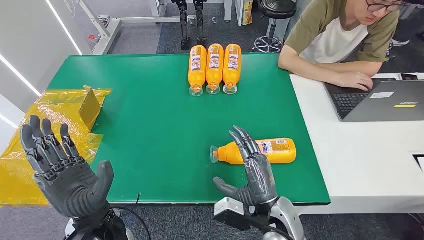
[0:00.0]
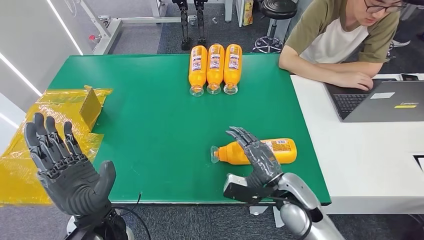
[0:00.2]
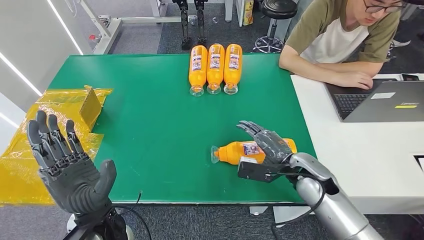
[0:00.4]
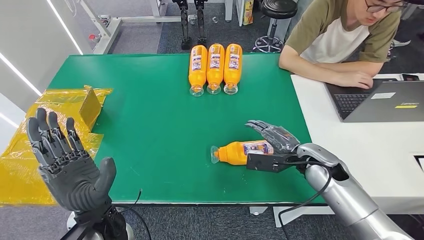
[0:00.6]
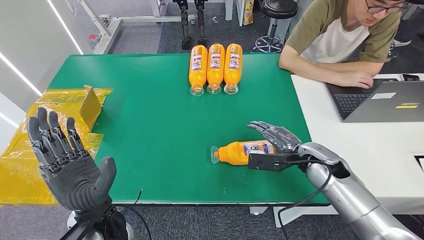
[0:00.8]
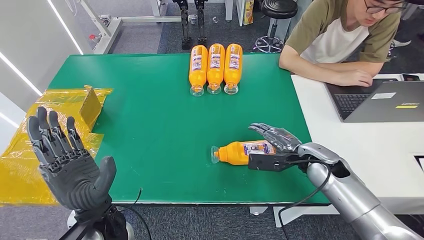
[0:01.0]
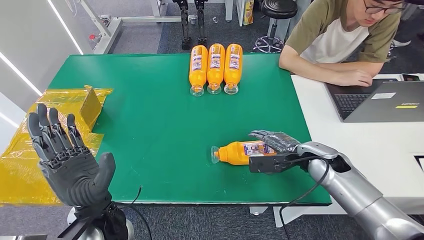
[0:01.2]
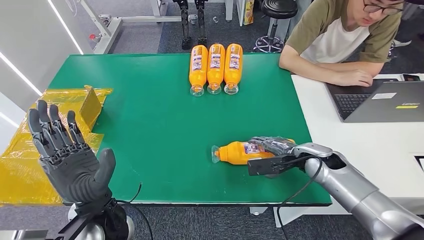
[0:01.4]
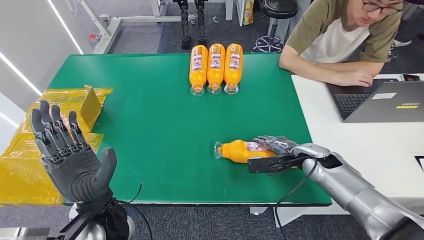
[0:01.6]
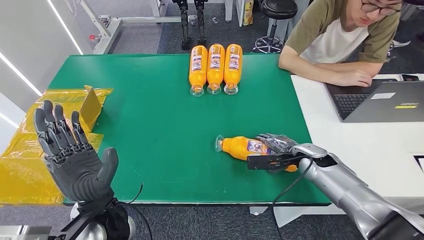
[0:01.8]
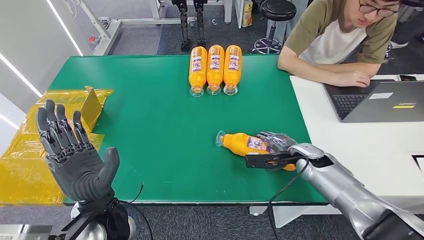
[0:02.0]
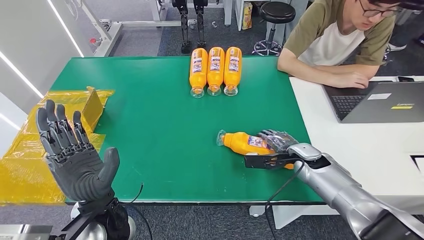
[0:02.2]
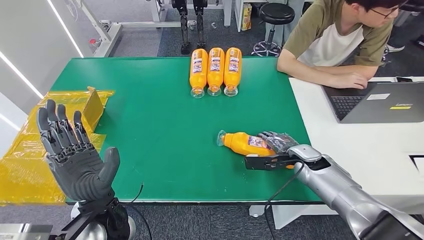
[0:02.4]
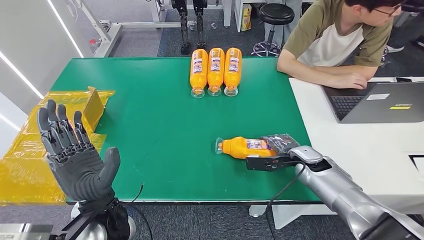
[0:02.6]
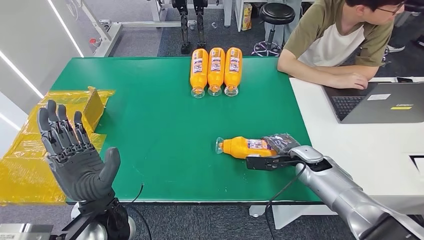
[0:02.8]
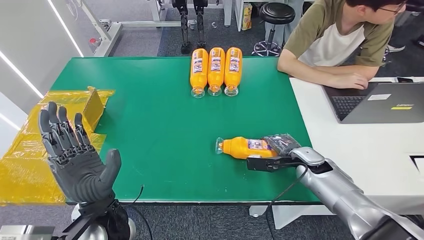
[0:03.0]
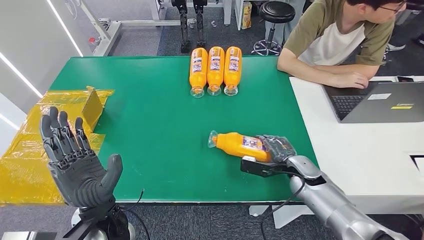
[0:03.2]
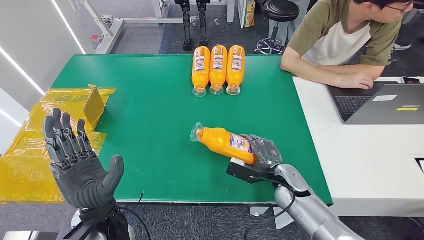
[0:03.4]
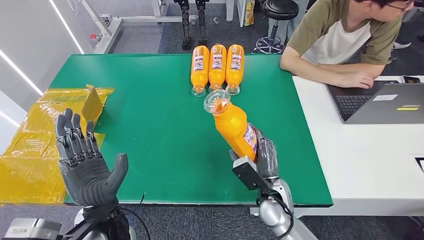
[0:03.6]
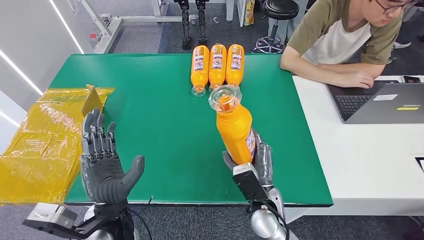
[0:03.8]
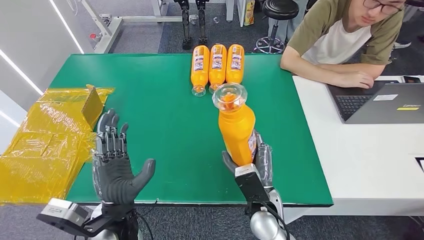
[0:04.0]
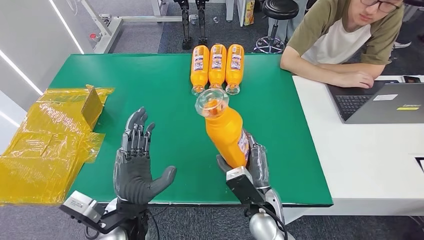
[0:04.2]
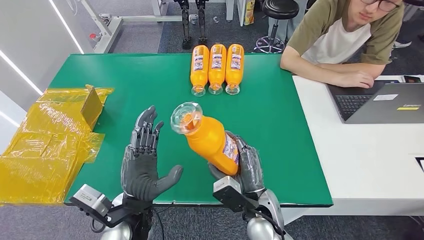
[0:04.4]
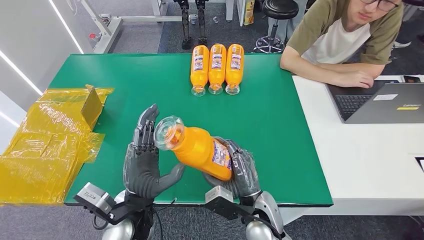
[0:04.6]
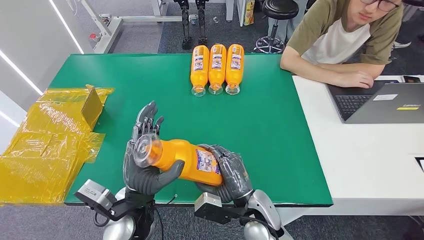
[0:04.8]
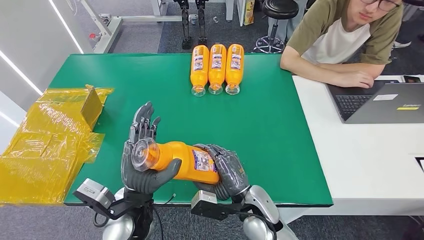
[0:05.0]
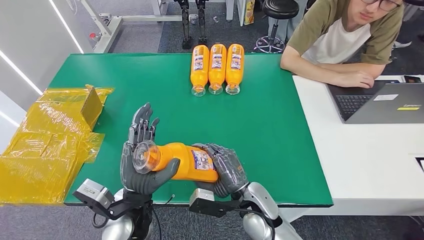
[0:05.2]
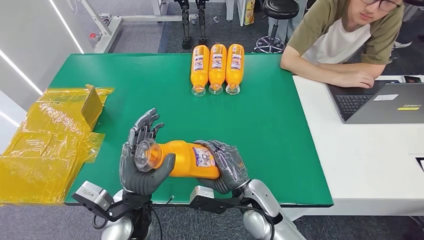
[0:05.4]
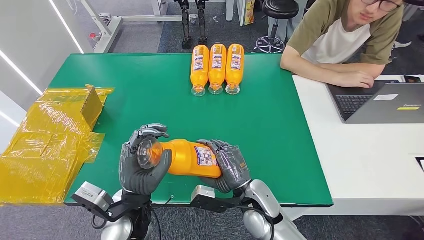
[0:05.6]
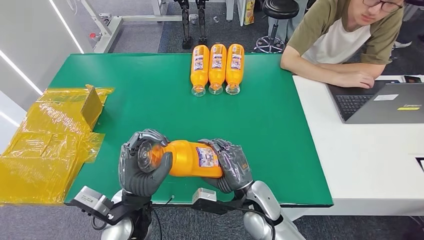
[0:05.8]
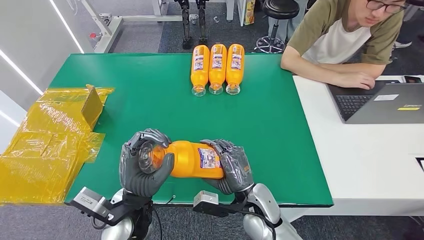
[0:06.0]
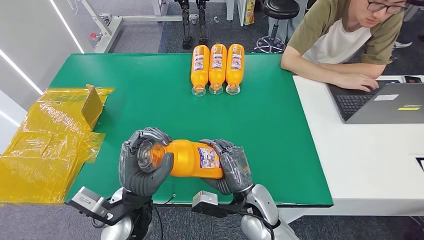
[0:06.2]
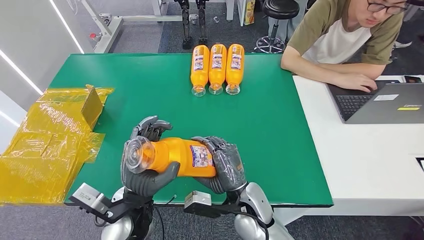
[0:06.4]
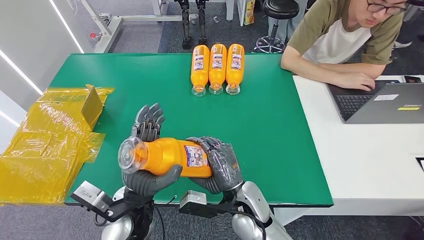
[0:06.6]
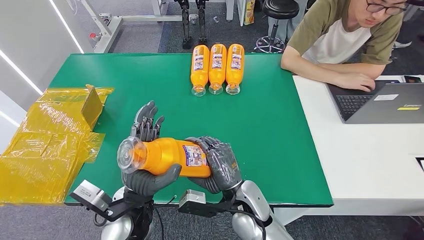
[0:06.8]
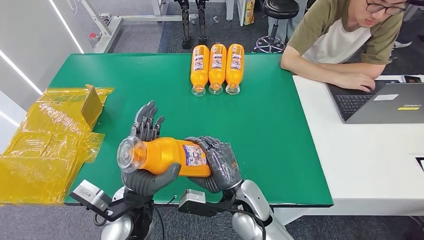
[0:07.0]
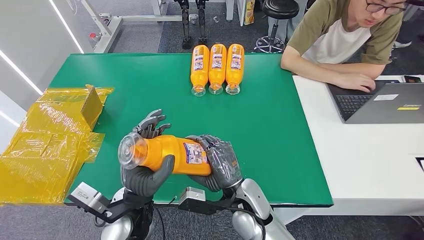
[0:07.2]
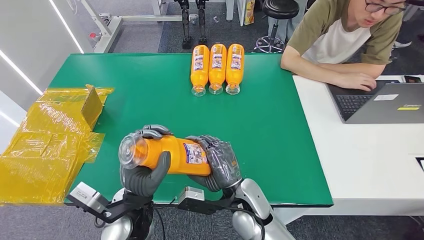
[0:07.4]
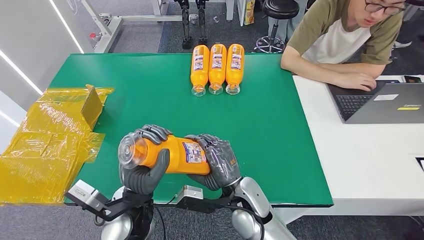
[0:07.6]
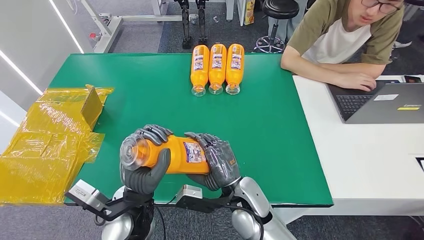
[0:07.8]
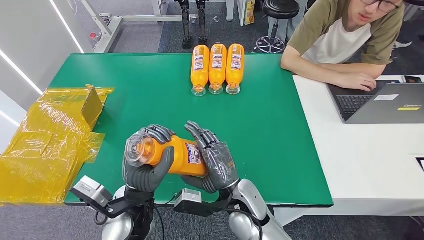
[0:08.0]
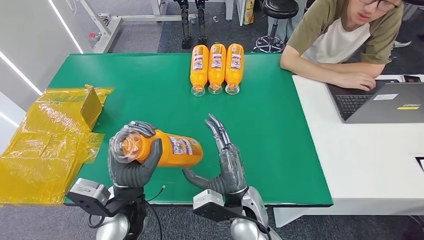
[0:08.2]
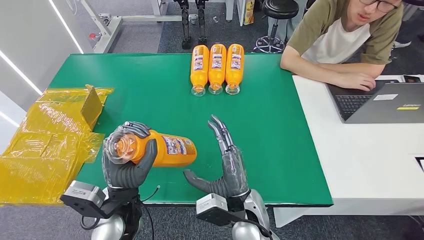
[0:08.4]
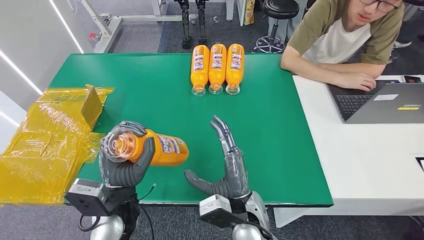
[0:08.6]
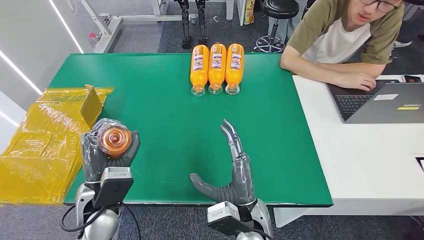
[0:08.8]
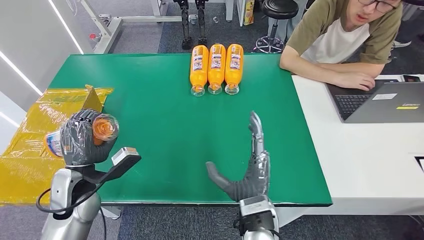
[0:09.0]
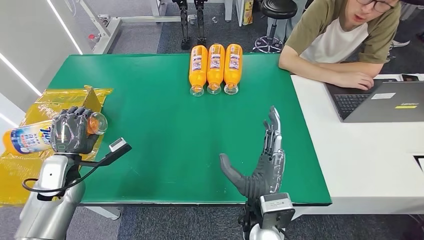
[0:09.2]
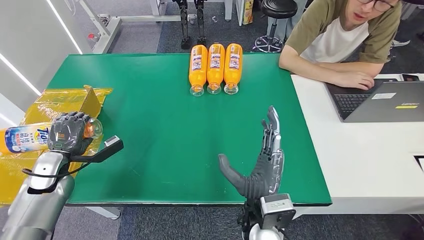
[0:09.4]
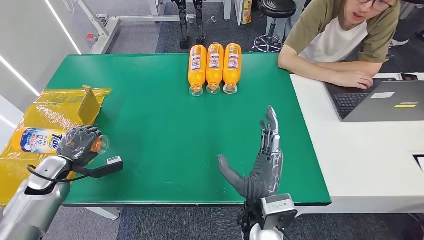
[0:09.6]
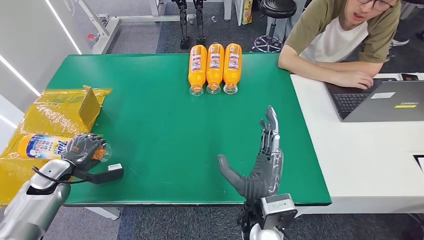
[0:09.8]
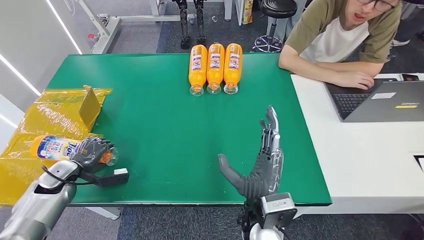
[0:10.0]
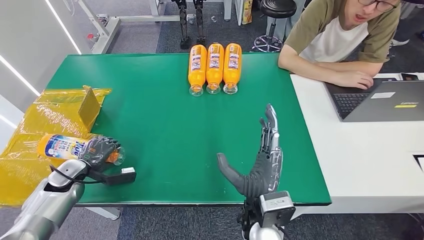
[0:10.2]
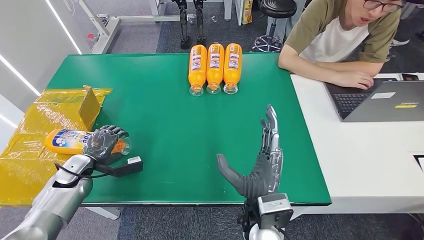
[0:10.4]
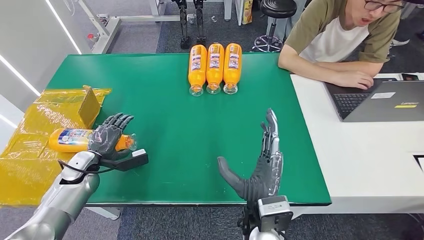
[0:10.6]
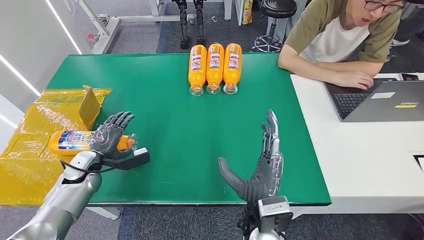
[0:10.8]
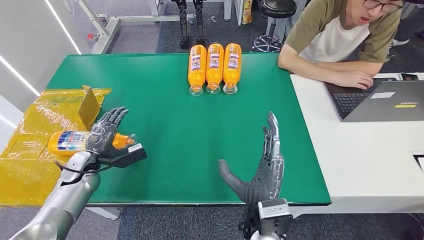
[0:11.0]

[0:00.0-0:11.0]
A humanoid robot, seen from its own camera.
Step, 0:00.0 to 0:04.4: Pick up the bottle from the table.
Step, 0:04.6 to 0:11.0: Turn the bottle to the front side.
0:04.8 to 0:07.8: The hands move only a little.
0:09.4 to 0:11.0: The left hand moves some 5 cm.

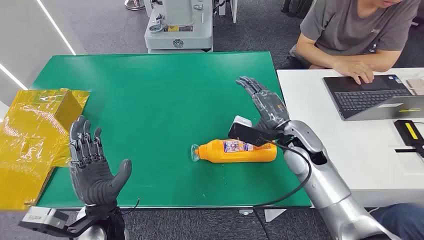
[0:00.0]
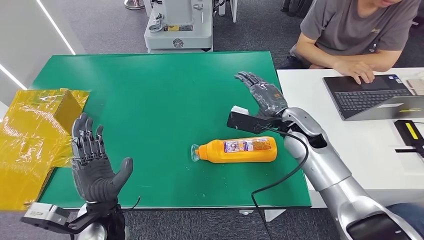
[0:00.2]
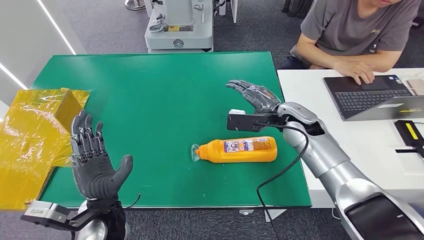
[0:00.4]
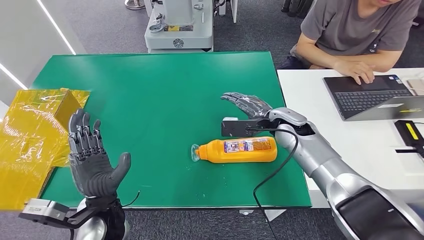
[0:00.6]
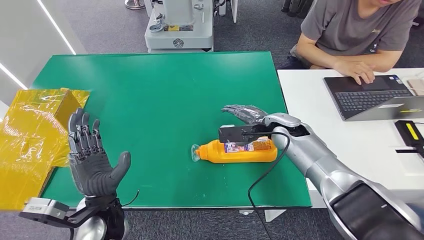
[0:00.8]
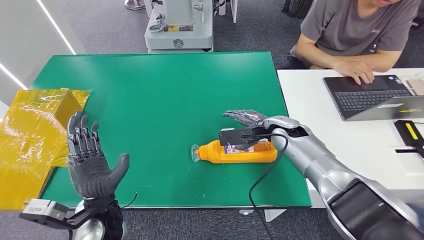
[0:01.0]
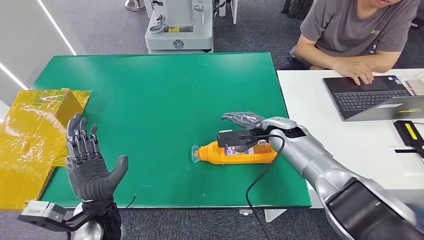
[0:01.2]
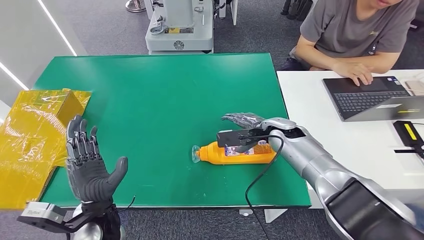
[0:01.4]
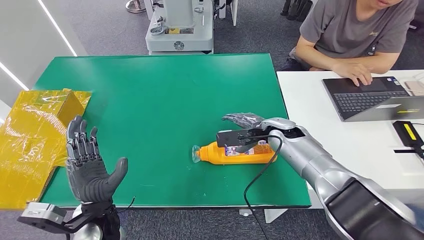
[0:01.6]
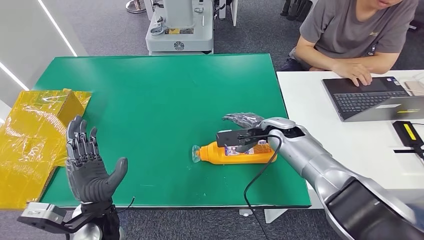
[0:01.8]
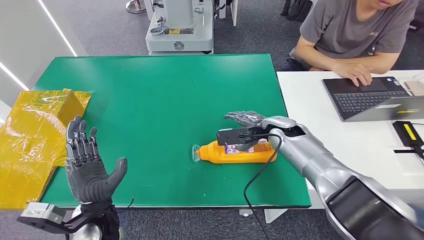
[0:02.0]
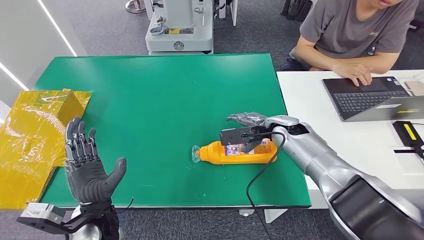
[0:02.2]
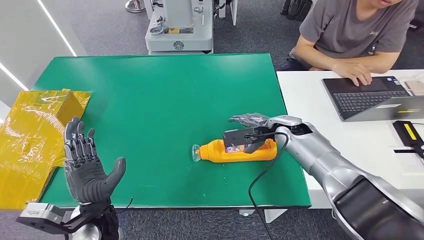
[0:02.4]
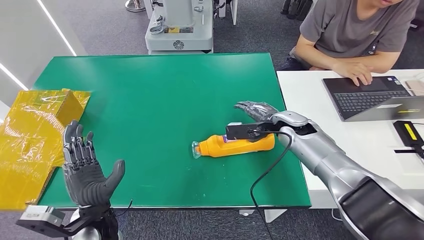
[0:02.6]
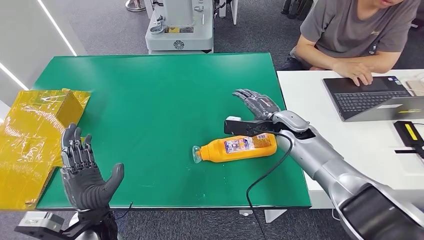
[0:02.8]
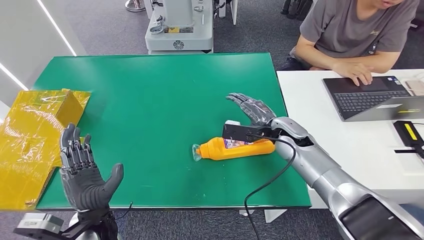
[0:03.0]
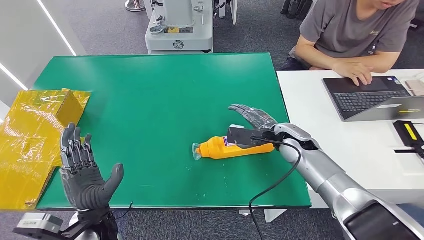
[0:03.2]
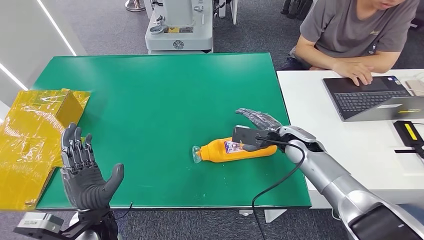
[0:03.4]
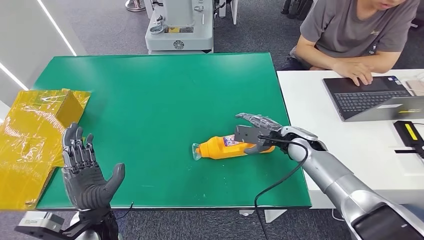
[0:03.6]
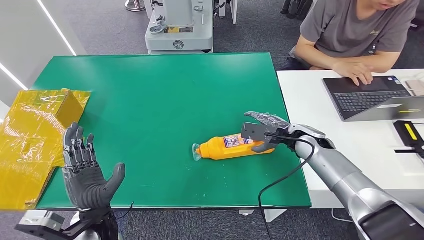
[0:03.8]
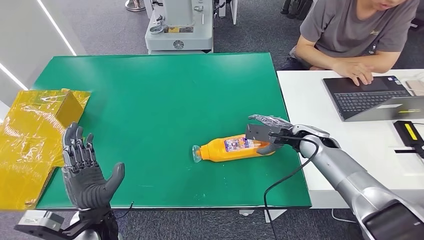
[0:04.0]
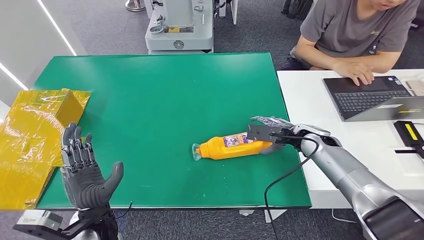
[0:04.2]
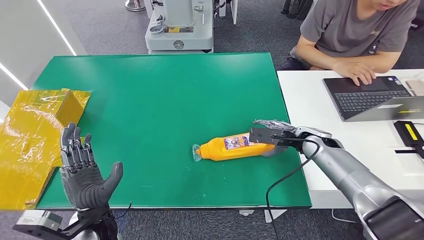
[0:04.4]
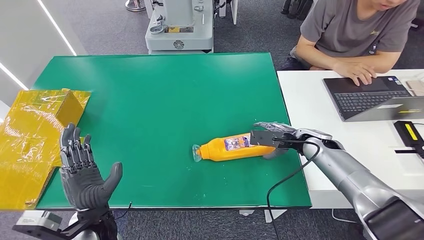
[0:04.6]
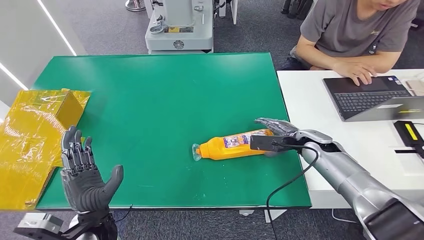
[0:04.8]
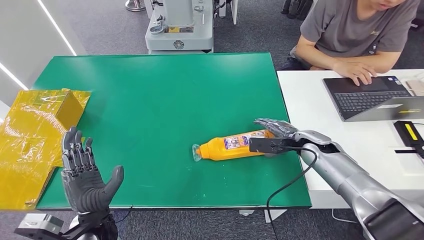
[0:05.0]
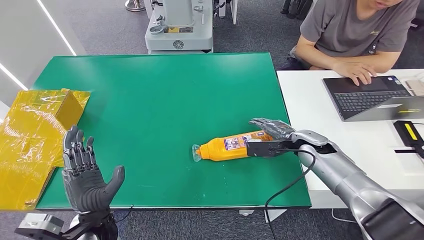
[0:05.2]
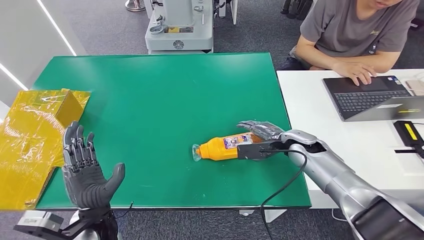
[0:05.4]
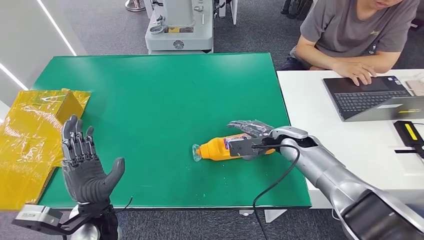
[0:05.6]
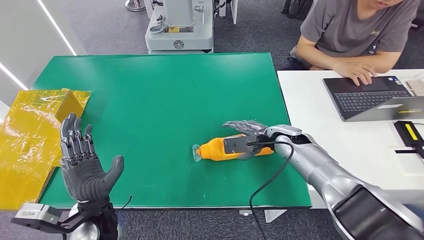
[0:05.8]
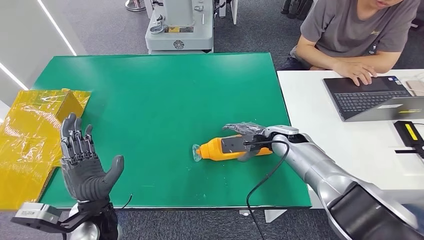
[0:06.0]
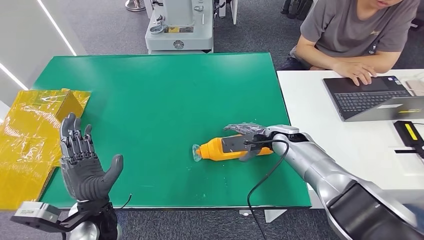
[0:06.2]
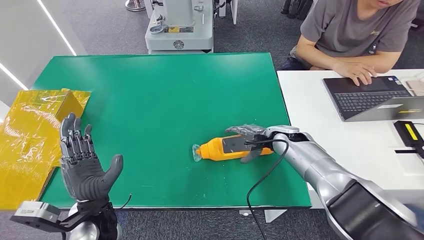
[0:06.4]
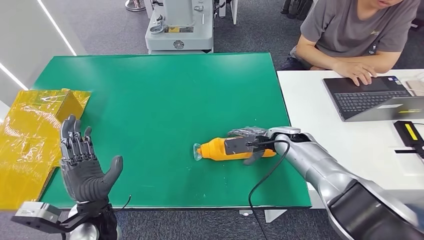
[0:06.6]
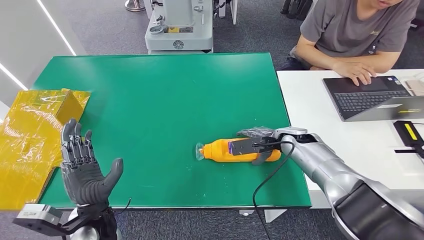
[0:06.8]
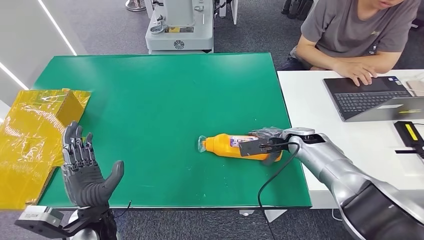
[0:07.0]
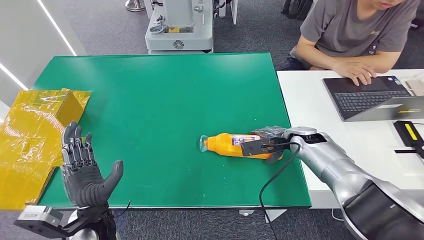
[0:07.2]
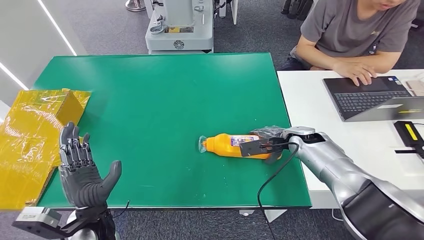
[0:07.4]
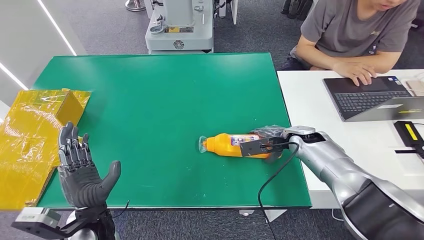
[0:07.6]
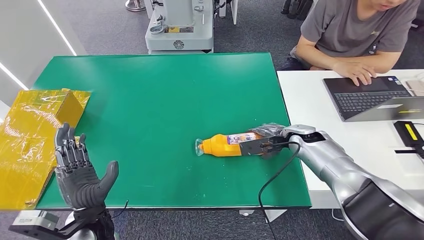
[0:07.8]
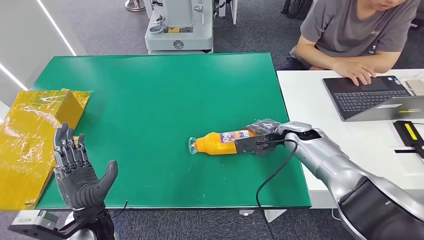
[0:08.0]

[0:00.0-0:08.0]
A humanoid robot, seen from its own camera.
Step, 0:00.0 to 0:07.8: Pick up the bottle from the table.
0:03.2 to 0:04.8: The right hand travels to the right by about 10 cm.
0:04.8 to 0:06.4: The right hand moves to the left, some 10 cm.
0:06.4 to 0:08.0: The hands stay close to where they were, moving slightly.
